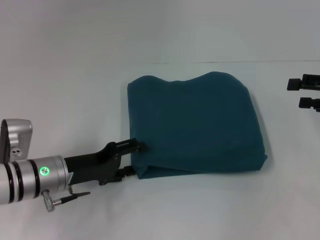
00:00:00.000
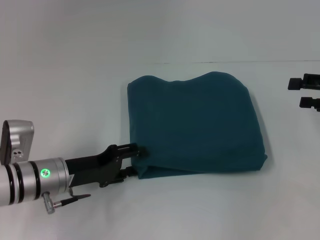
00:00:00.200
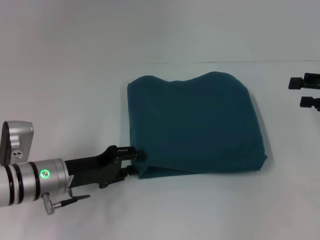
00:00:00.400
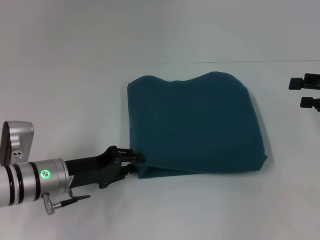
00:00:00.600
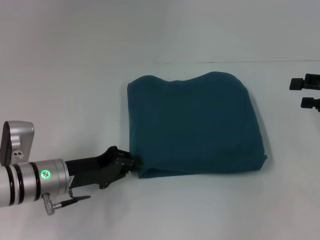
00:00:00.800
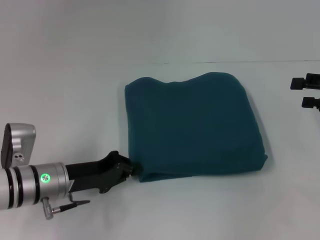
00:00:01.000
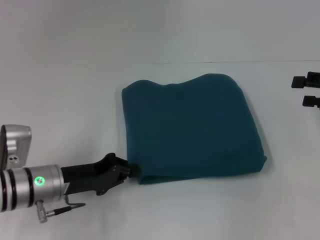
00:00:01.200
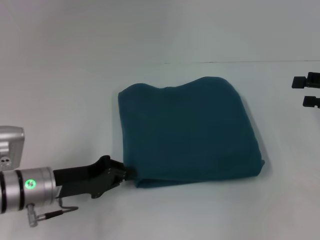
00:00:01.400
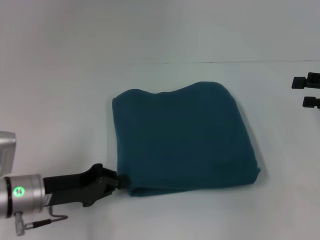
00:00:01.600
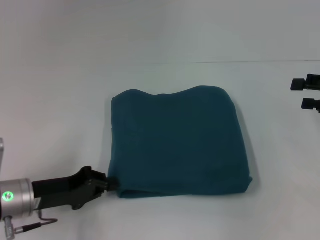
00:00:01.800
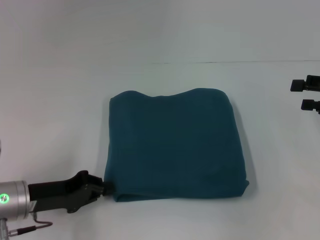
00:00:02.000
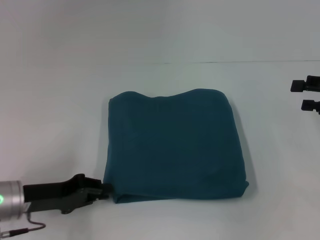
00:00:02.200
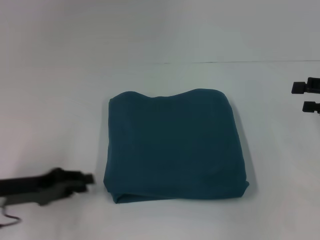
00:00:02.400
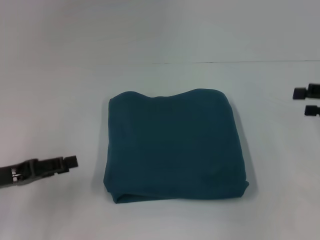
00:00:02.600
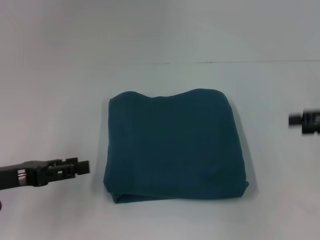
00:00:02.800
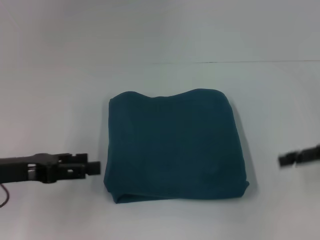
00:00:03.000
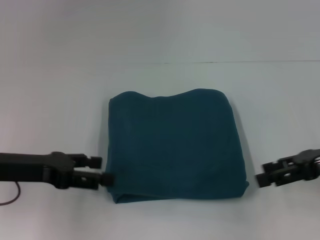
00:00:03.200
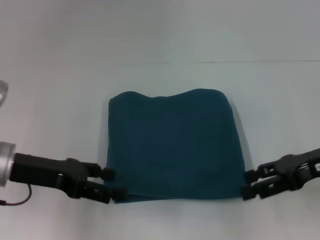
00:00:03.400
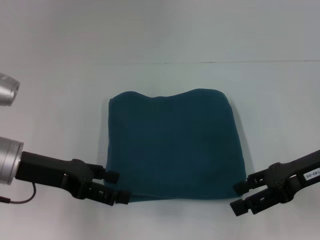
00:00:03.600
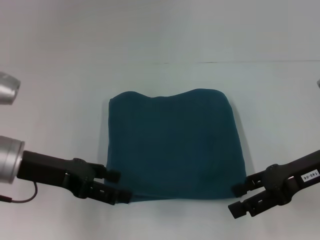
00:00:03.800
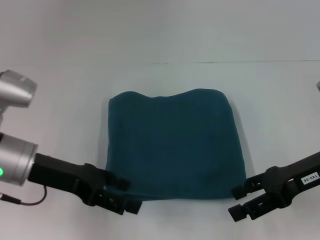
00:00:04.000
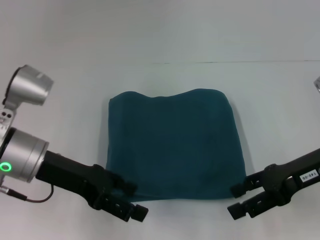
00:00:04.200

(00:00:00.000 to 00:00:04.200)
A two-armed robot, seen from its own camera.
00:00:00.000 - 00:00:01.400: The left gripper closes its fingers.
00:00:01.400 - 00:00:02.800: The left gripper moves to the left and upward, some 10 cm, and opens up.
00:00:02.800 - 00:00:04.200: The left gripper is displaced to the right and forward by some 10 cm, and opens its fingers. The right gripper shifts some 10 cm to the left.

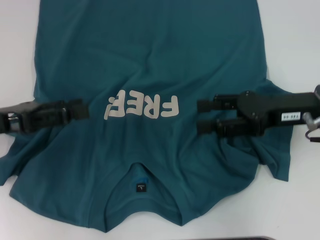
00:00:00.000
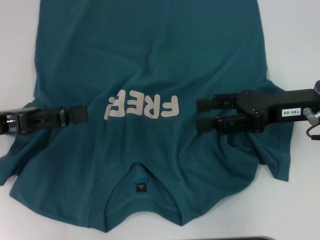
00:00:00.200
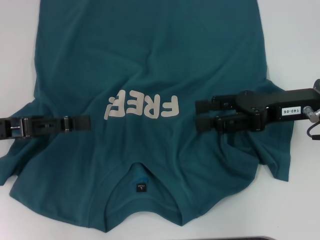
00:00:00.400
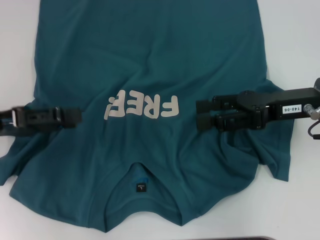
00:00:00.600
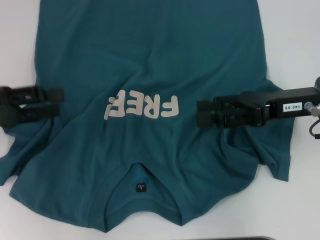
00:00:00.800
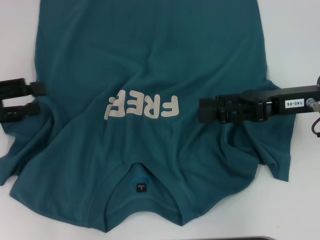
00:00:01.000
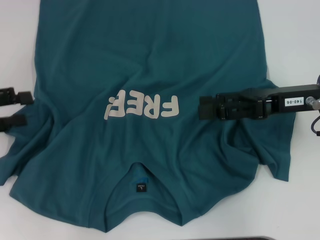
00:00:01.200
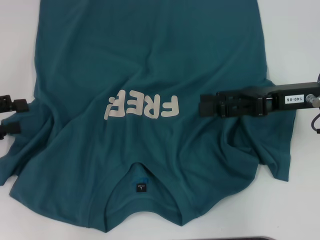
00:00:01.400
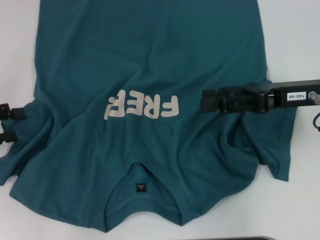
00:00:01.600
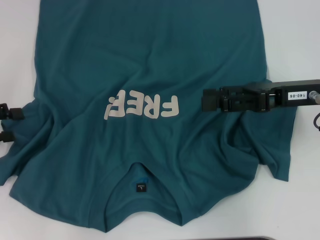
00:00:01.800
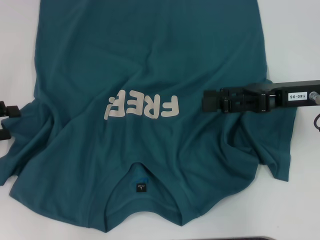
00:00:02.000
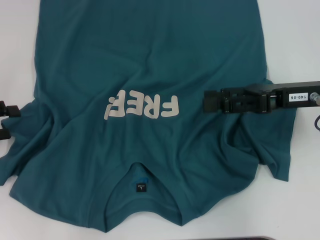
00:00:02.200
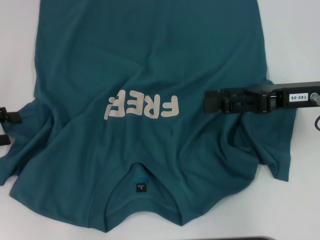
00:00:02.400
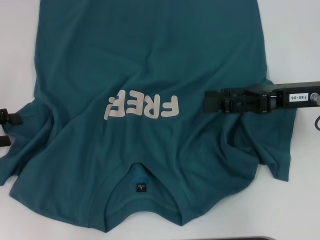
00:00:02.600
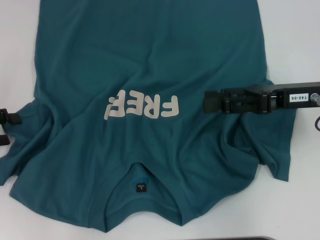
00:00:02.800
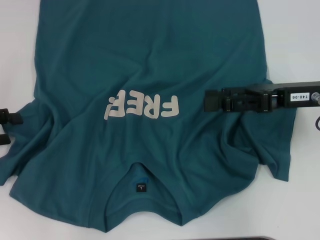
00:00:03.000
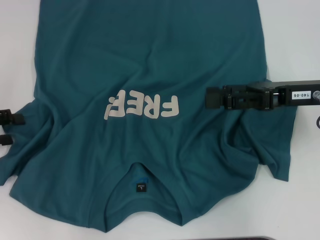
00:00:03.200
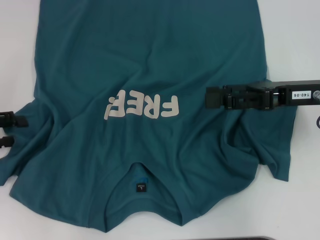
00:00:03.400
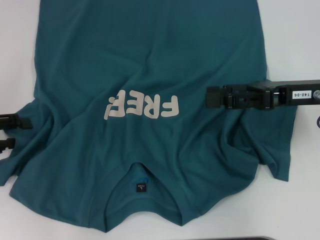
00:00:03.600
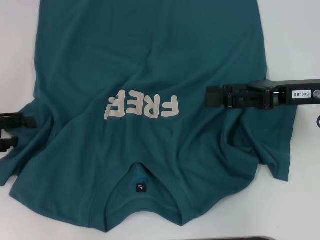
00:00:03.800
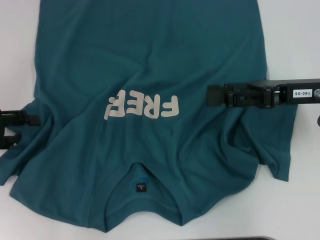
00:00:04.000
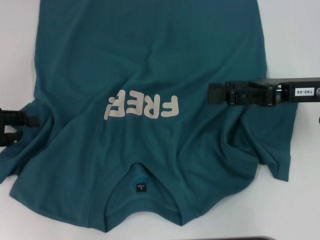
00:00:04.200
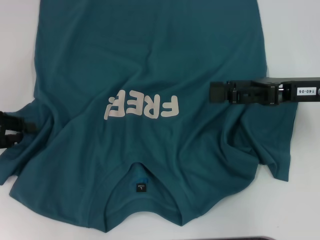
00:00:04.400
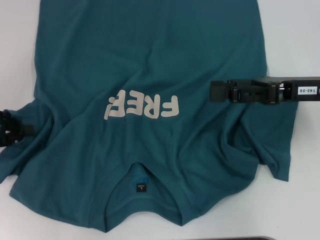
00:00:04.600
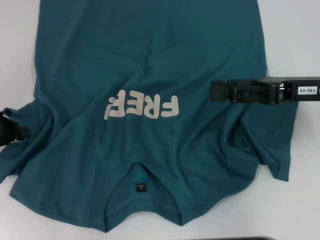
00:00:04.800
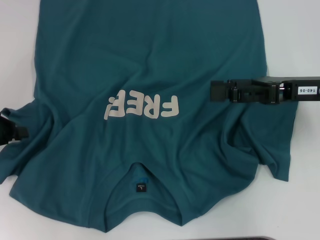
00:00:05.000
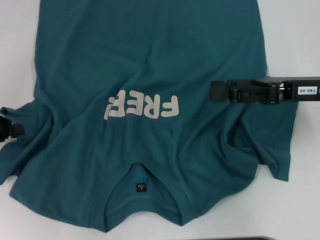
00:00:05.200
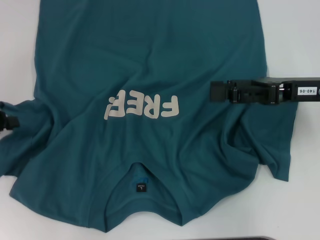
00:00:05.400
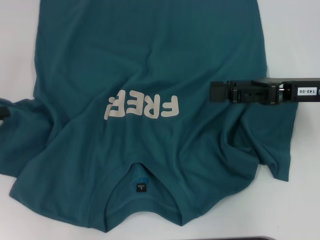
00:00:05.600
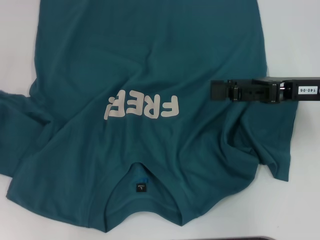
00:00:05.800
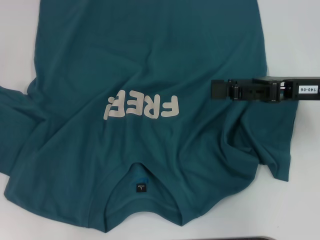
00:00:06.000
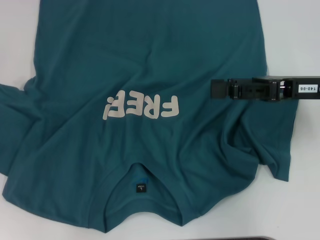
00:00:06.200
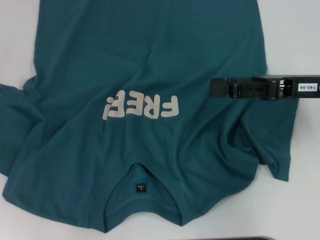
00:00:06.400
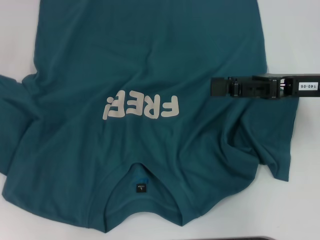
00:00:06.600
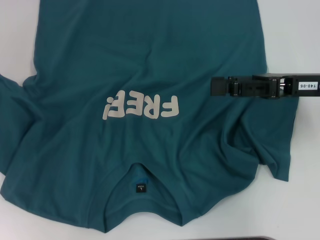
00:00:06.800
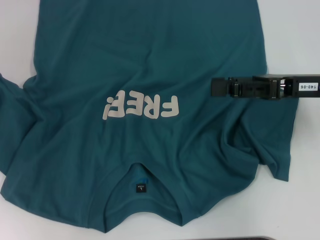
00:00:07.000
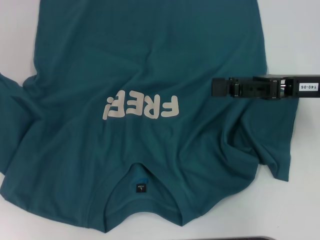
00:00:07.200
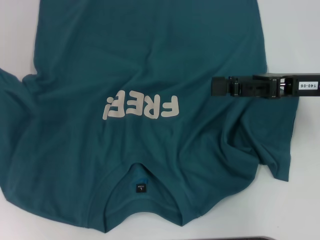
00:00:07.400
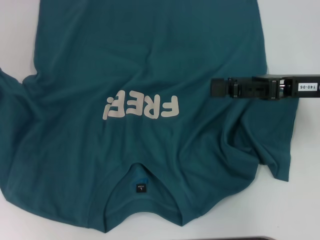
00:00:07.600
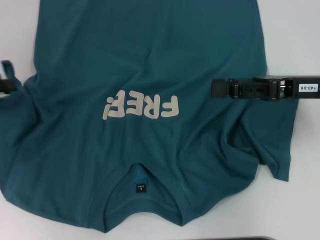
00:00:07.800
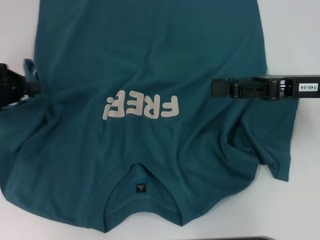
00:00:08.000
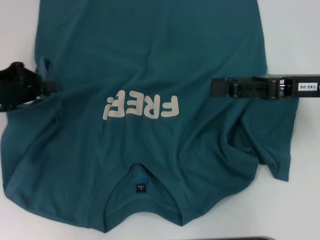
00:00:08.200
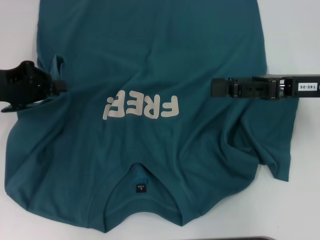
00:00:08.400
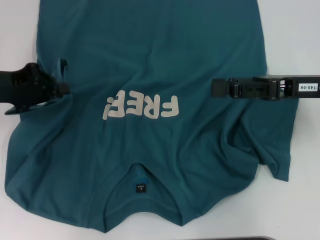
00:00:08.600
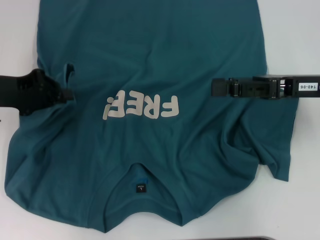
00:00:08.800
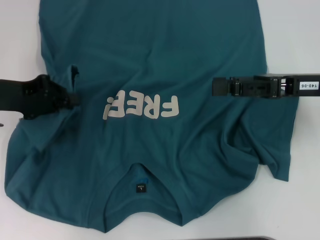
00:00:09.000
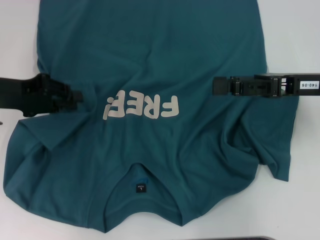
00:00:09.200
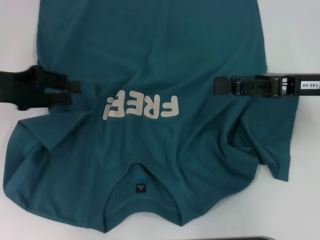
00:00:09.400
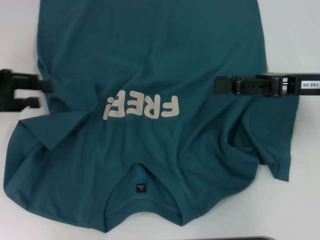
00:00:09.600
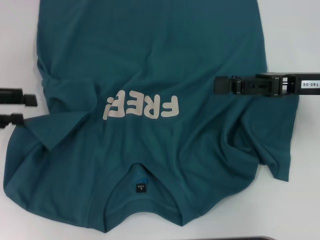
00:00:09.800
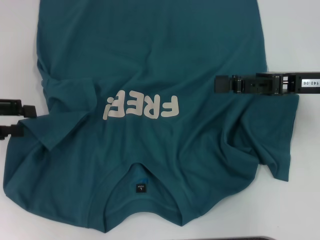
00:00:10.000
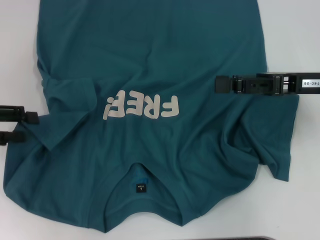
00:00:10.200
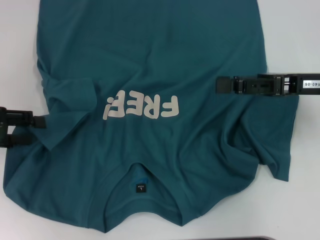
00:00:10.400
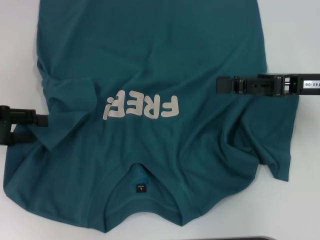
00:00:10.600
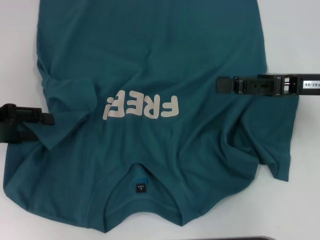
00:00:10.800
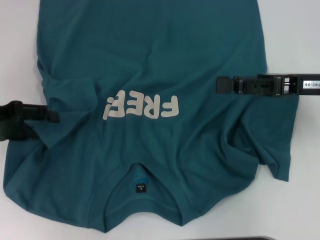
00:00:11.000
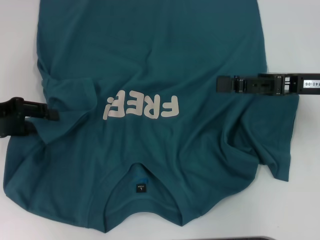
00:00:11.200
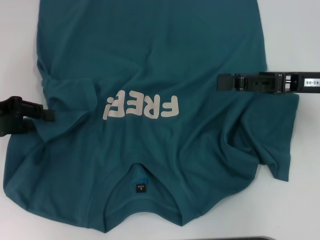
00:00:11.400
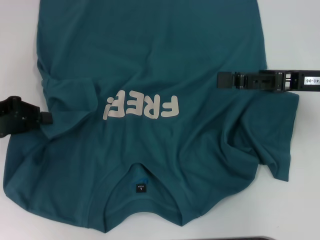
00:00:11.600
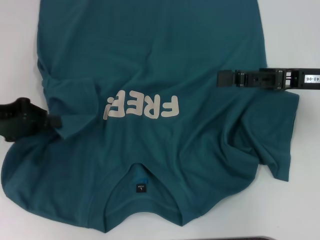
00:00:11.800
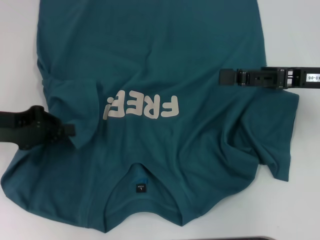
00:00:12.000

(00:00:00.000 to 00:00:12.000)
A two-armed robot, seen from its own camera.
00:00:00.000 - 00:00:01.600: The left gripper moves to the left, about 10 cm.
00:00:01.600 - 00:00:04.400: The grippers move only a little.
00:00:04.400 - 00:00:06.000: The left gripper is displaced to the left by some 5 cm, and closes.
00:00:06.000 - 00:00:07.600: The left gripper ends up about 5 cm from where it was.
00:00:07.600 - 00:00:09.000: The left gripper moves to the right, some 10 cm.
00:00:09.000 - 00:00:10.400: The left gripper travels to the left by some 5 cm, and opens up.
00:00:10.400 - 00:00:12.000: The left gripper closes.

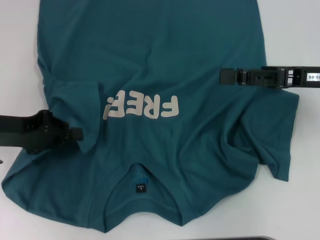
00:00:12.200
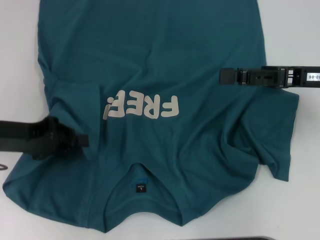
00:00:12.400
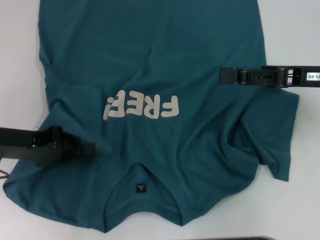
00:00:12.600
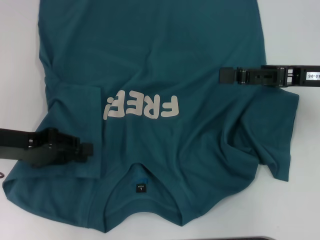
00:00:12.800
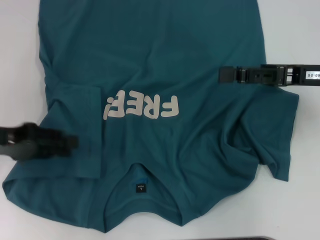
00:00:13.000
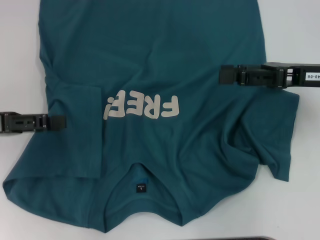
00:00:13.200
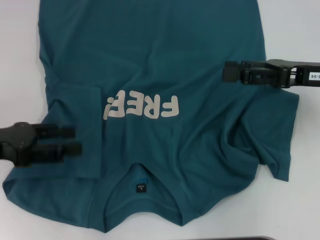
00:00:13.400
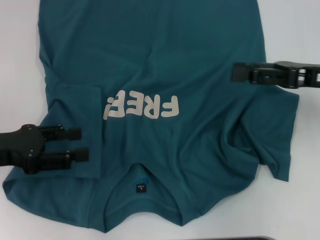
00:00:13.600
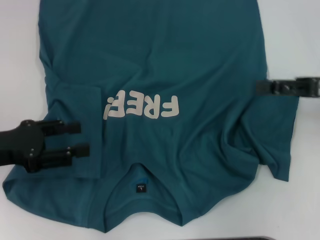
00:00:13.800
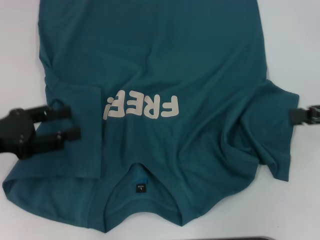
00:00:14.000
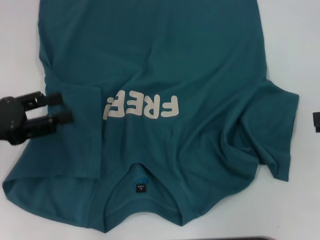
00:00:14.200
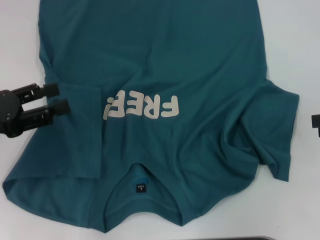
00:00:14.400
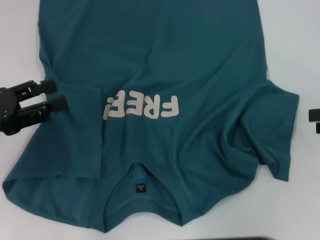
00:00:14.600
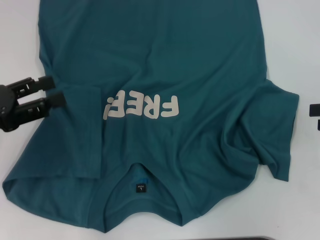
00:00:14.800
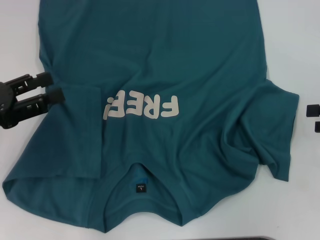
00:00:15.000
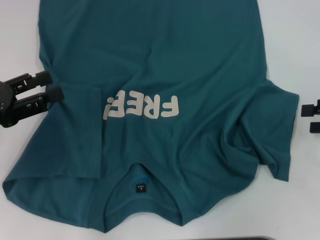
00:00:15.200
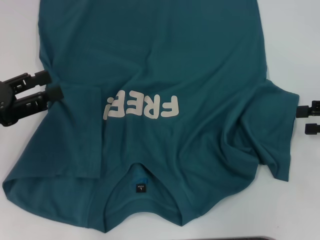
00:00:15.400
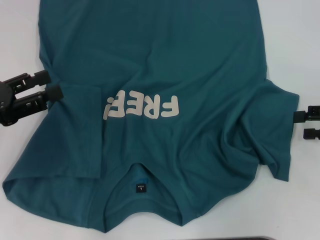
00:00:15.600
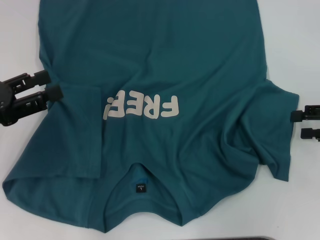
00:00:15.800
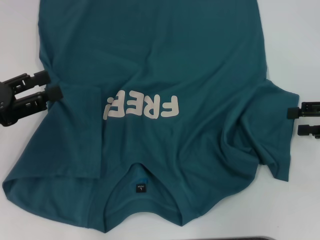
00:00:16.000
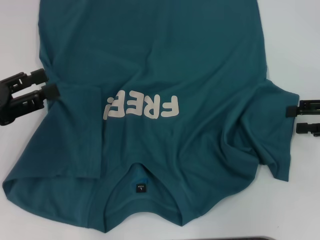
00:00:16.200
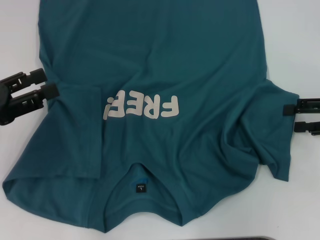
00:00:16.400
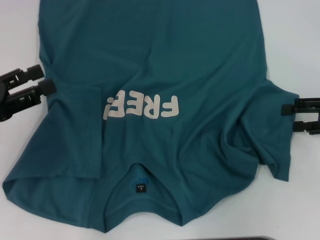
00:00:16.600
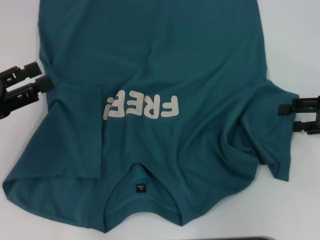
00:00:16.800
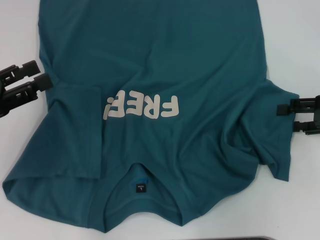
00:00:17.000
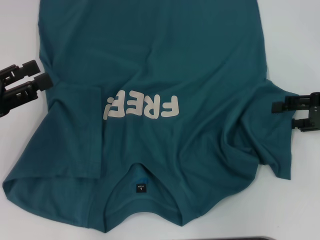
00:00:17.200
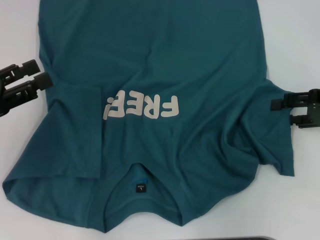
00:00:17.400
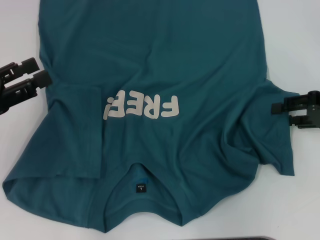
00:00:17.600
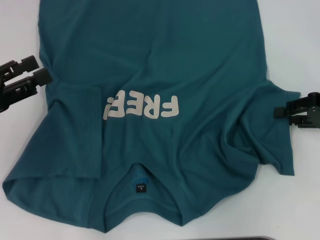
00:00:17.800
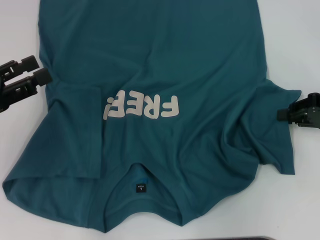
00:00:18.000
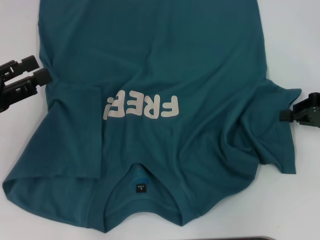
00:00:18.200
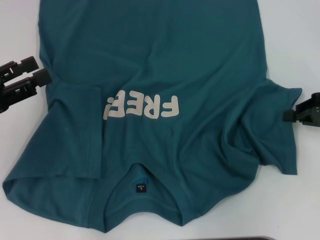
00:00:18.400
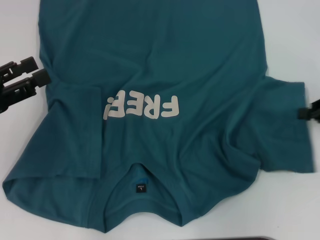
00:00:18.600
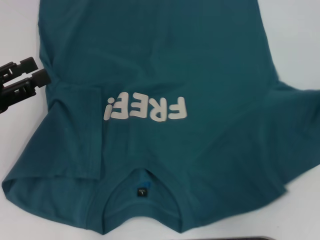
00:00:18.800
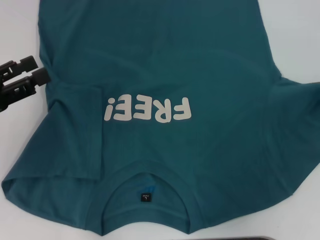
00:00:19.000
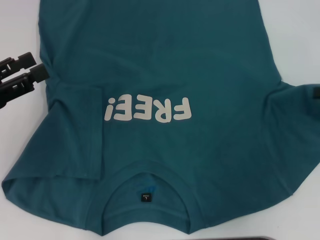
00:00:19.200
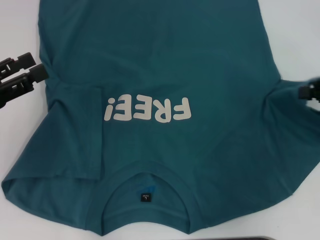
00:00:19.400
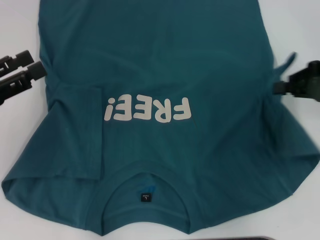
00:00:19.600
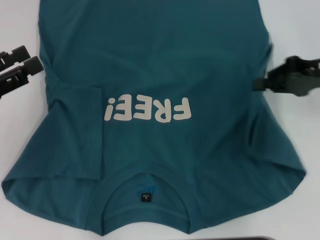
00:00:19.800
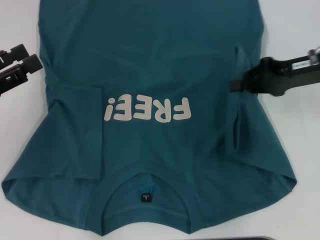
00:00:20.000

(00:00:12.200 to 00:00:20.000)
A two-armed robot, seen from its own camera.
00:00:12.200 - 00:00:13.800: The left gripper opens its fingers.
00:00:13.800 - 00:00:15.400: The right gripper is displaced to the right by roughly 5 cm.
00:00:15.400 - 00:00:16.800: The grippers move only a little.
00:00:16.800 - 00:00:18.400: The right gripper closes its fingers.
00:00:18.400 - 00:00:20.000: The right gripper goes roughly 10 cm to the left.
